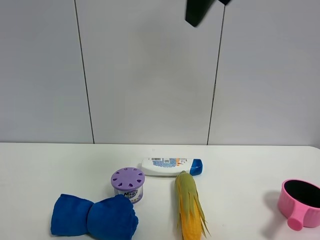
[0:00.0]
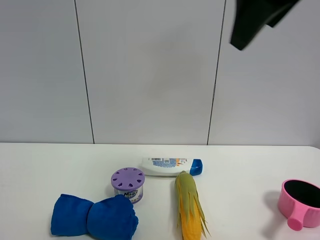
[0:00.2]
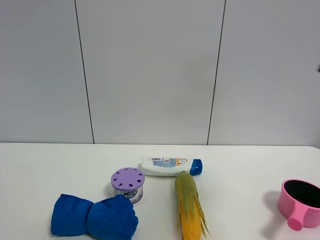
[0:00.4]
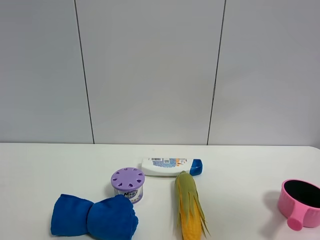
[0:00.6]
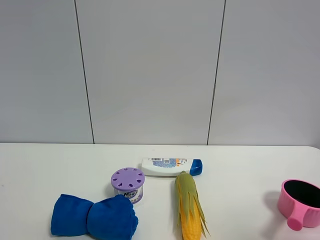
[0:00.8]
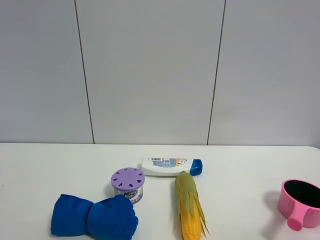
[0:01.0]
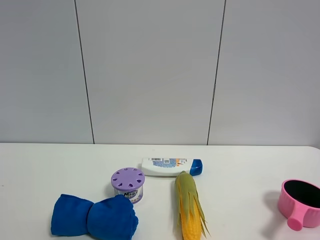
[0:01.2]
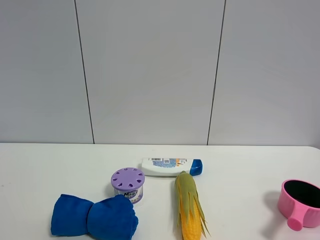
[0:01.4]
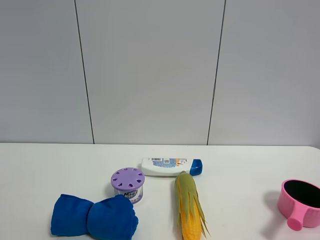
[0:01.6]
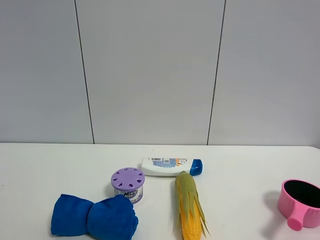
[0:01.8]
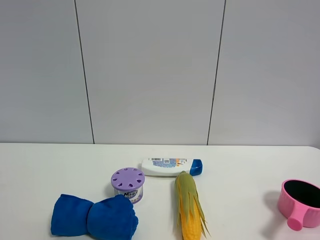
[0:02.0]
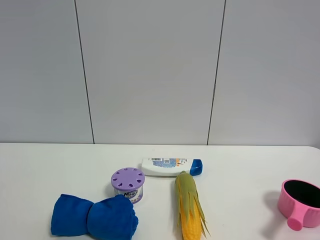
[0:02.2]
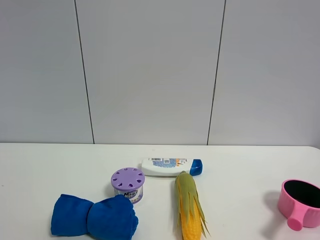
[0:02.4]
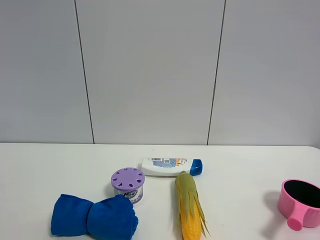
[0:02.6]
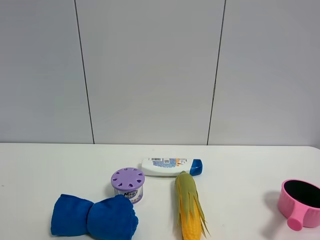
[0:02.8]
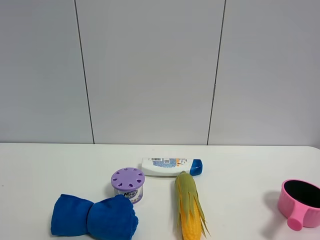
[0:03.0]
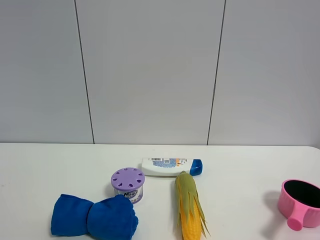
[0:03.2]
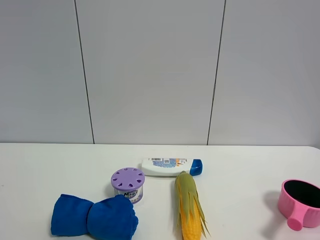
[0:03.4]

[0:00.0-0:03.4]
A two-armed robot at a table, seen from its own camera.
Task of the whole recording: the gripper move the object.
0:00.0 to 0:01.6: The right gripper goes some 35 cm backward, to the right and downward.

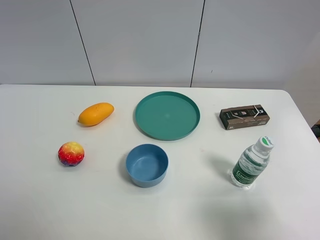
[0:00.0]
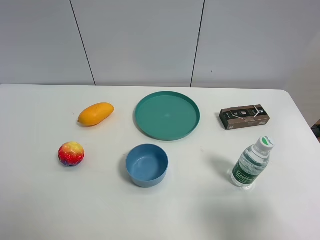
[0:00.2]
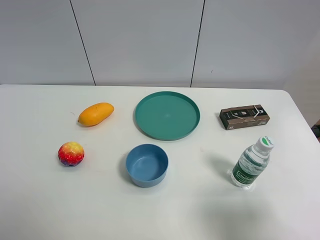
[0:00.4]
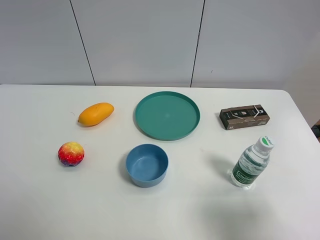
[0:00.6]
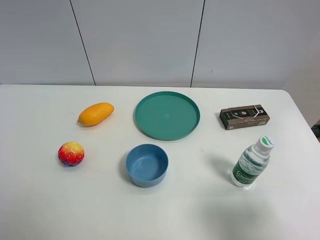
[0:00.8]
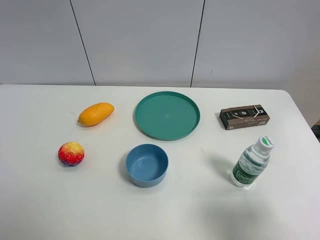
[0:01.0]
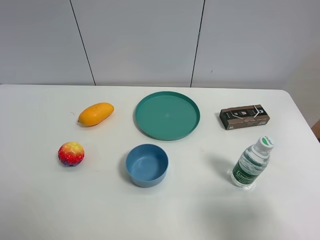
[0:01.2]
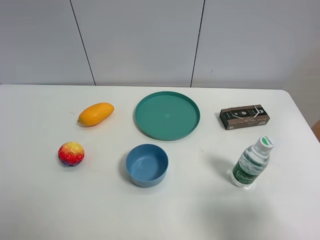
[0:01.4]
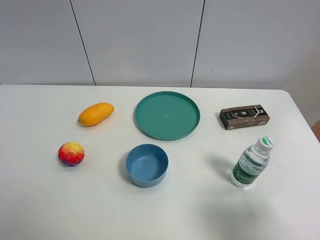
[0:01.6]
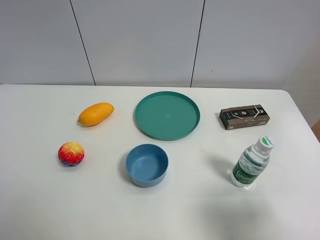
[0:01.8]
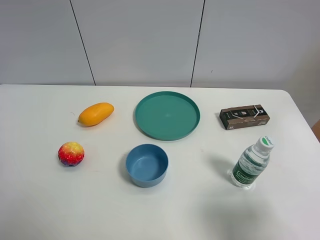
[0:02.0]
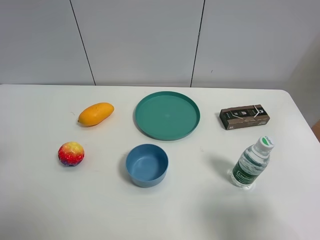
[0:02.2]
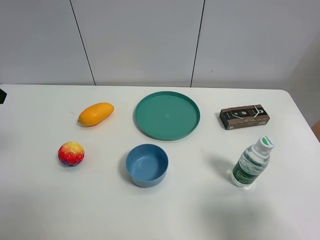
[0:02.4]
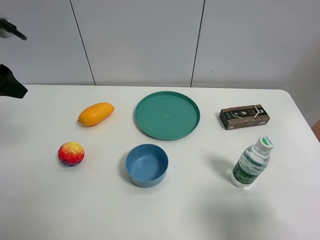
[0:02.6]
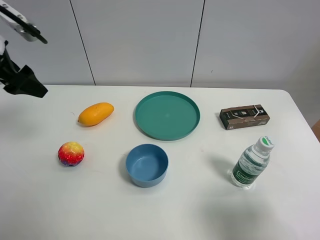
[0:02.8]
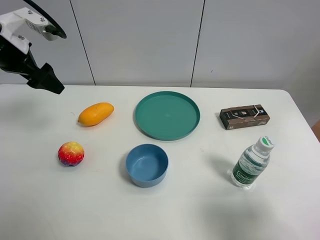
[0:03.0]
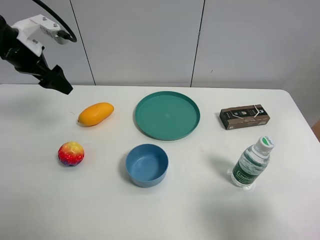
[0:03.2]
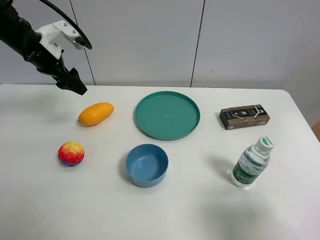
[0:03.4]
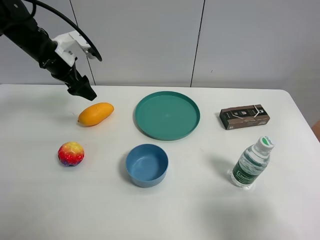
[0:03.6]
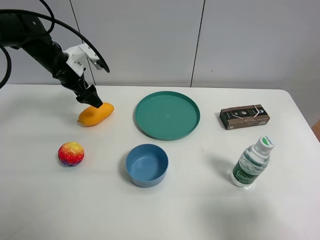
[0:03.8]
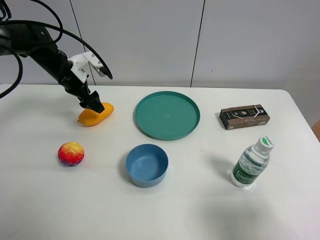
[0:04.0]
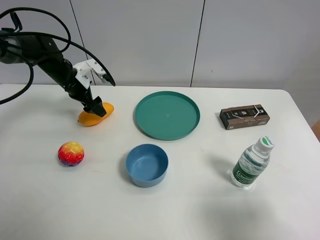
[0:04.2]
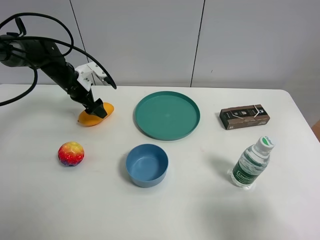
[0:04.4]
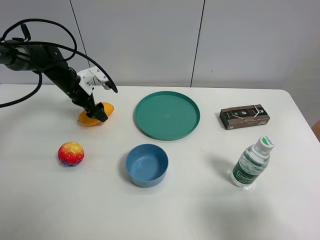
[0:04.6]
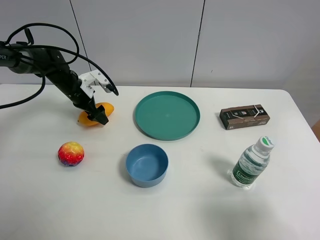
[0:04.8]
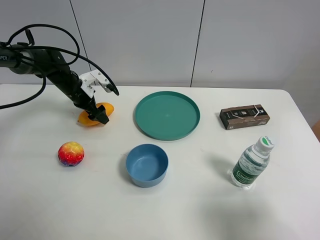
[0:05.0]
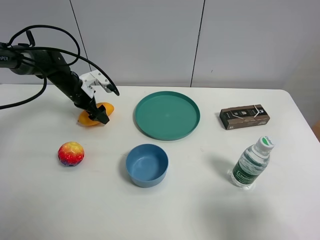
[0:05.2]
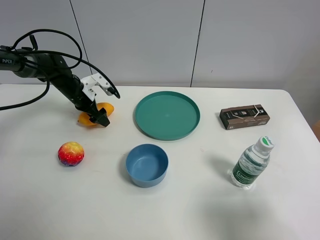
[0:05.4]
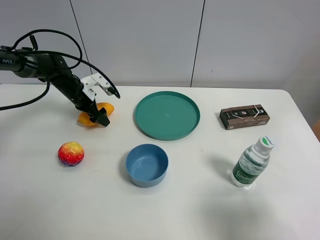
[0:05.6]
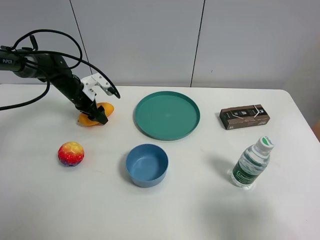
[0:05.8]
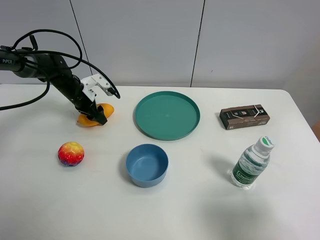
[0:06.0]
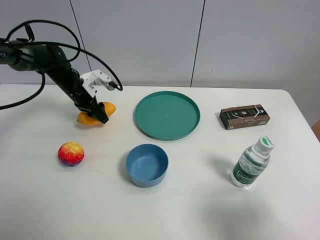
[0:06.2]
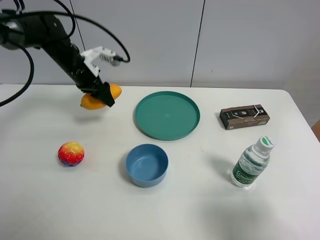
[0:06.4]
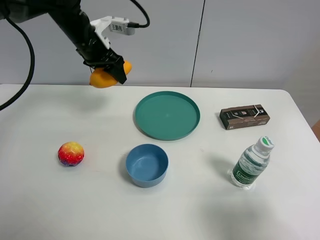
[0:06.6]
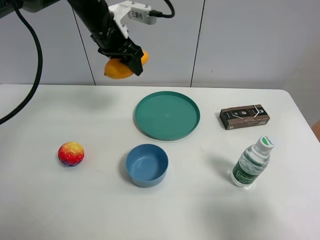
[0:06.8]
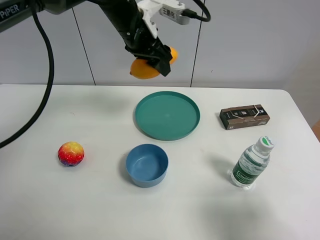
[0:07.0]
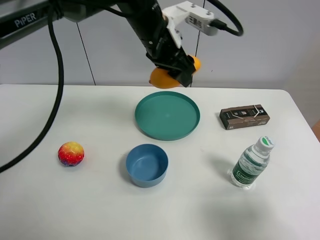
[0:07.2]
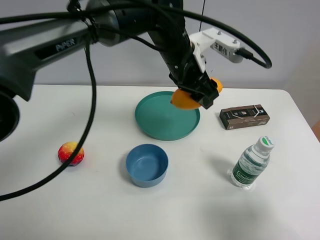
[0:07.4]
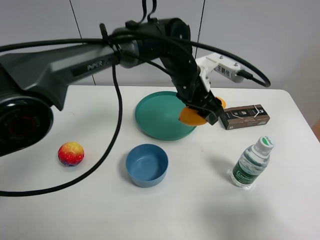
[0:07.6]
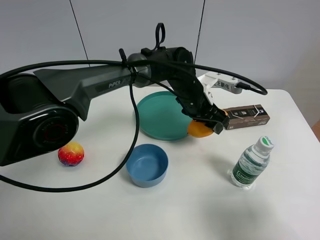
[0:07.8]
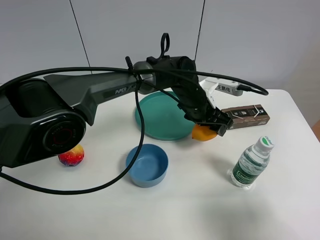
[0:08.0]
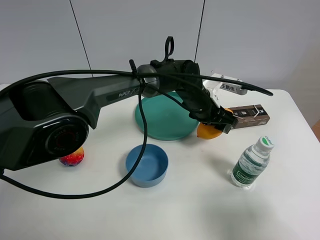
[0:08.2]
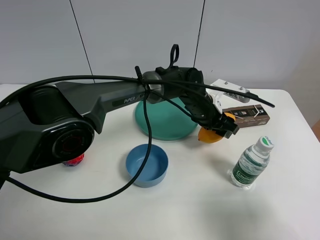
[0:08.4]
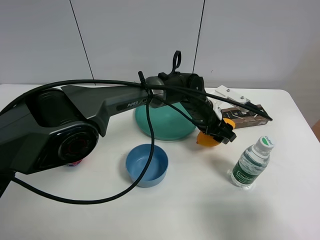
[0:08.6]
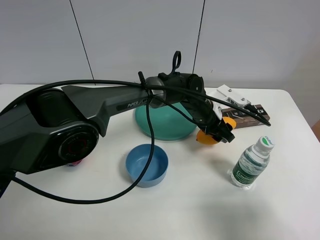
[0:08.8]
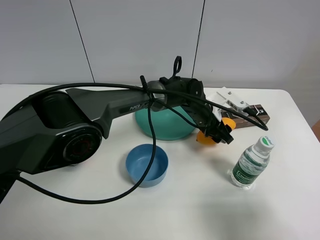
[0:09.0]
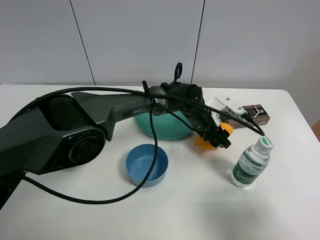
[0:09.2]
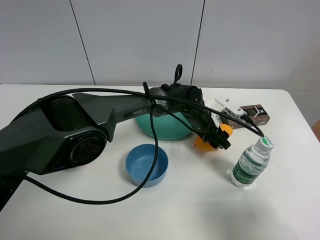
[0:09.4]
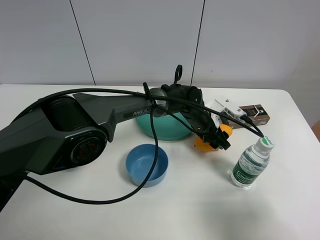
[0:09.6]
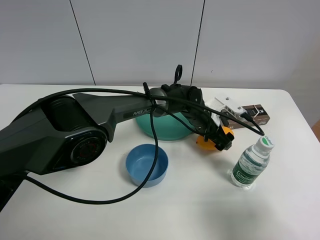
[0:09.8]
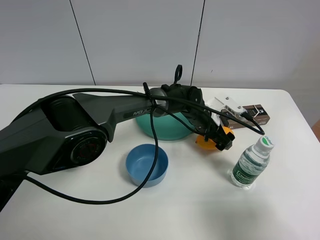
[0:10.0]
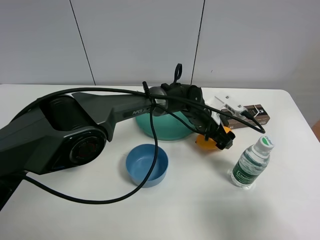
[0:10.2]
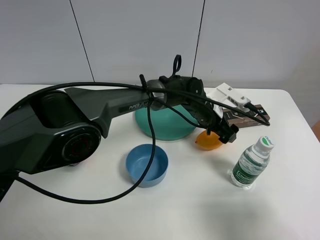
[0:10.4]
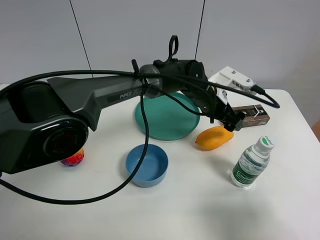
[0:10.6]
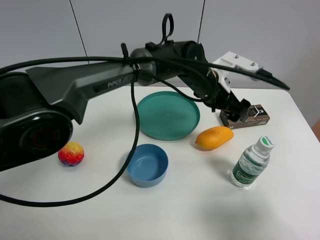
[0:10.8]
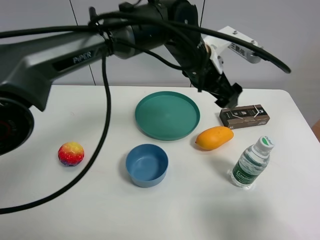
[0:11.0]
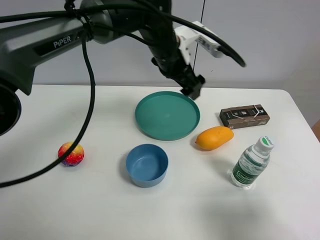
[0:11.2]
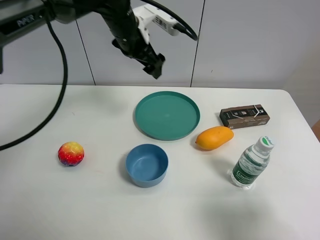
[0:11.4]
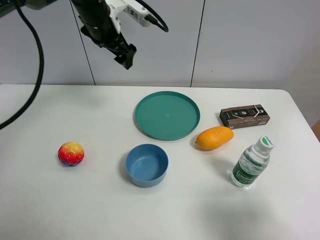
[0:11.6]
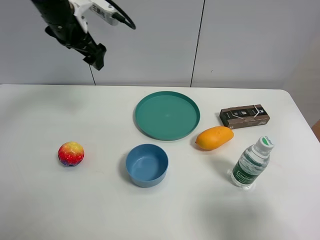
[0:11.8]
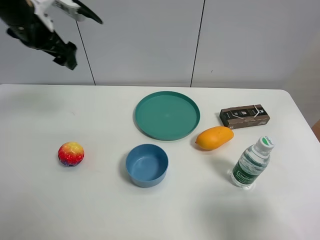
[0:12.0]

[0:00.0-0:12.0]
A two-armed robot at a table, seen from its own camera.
Task of the whole recording: the gripper move the object.
Step, 0:00.0 to 0:06.0: Grasp the mango with the left gripper.
Step, 0:06.2 to 0:10.2: Place the mango on the table with the left gripper.
0:01.6 to 0:03.0: The left gripper heads forward, covering some 35 cm.
0:03.0 to 0:04.4: The left gripper goes about 20 cm downward and forward.
0:04.4 to 0:06.0: The left gripper closes.
0:06.0 to 0:07.6: The left gripper moves to the right, some 30 cm.
0:07.6 to 0:09.0: The left gripper shifts about 10 cm downward.
0:09.0 to 0:10.4: The left gripper opens.
0:10.4 to 0:12.0: The left gripper is displaced to the left and upward by approximately 40 cm.

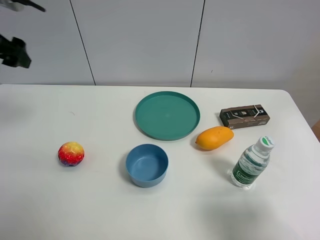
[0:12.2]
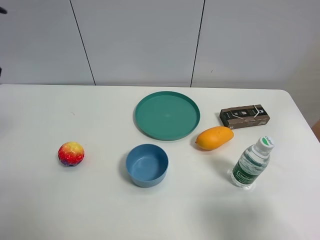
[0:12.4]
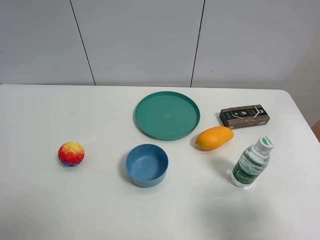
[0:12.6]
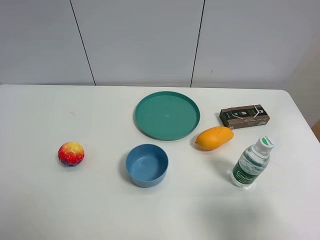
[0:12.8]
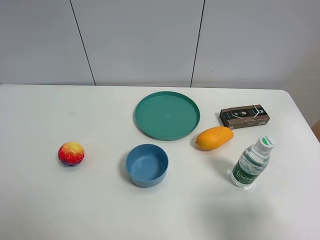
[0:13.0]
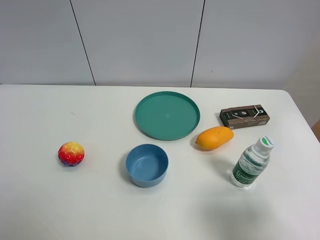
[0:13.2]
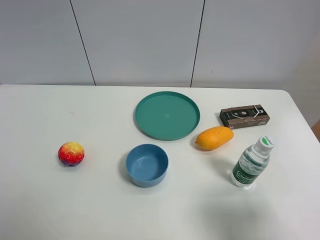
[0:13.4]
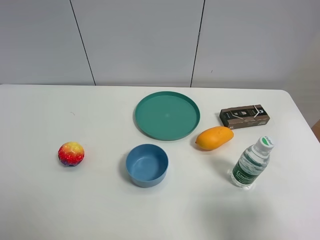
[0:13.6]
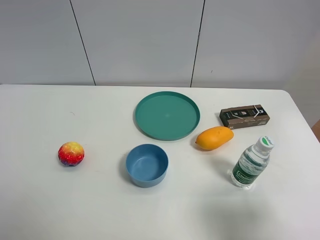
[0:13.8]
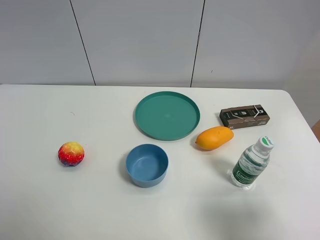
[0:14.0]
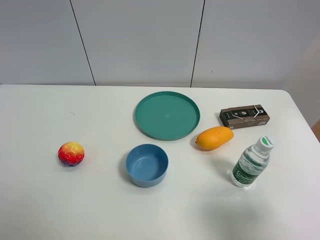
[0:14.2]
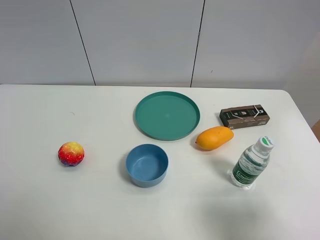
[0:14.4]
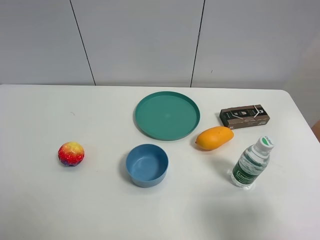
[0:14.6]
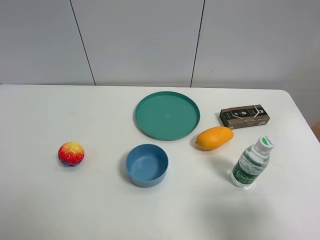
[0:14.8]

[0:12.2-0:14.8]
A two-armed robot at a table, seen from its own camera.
Task of the whole recording: the gripper move the object.
0:12.2 to 0:13.4: The left gripper is displaced backward by roughly 30 cm.
0:13.4 to 0:14.8: Both grippers stay put.

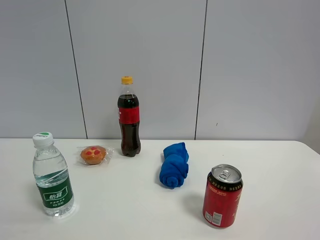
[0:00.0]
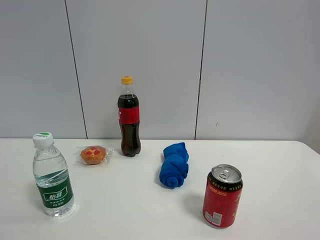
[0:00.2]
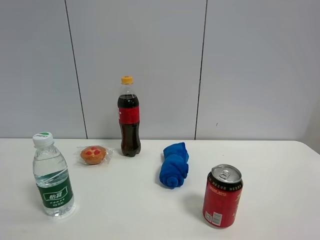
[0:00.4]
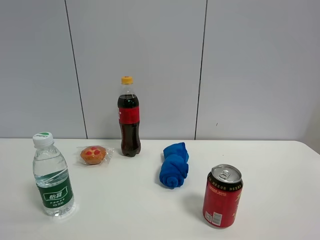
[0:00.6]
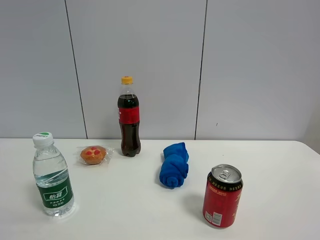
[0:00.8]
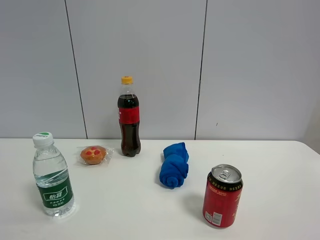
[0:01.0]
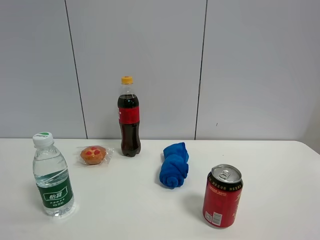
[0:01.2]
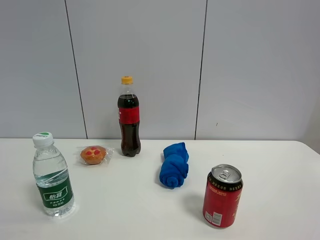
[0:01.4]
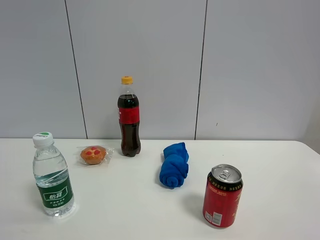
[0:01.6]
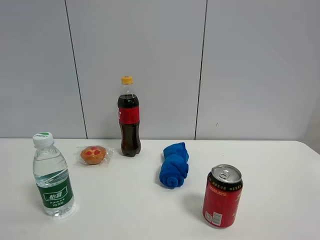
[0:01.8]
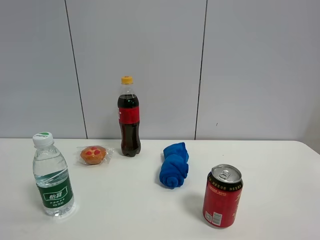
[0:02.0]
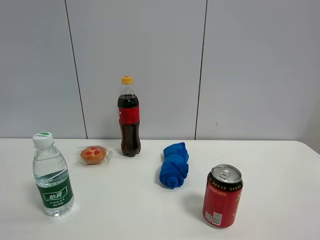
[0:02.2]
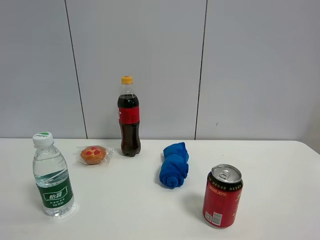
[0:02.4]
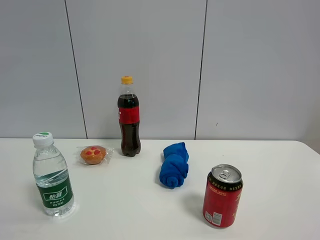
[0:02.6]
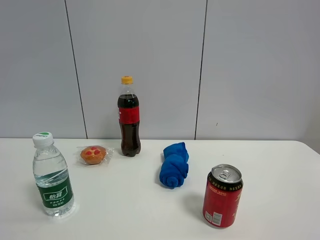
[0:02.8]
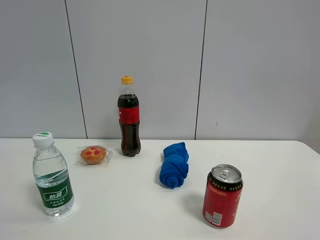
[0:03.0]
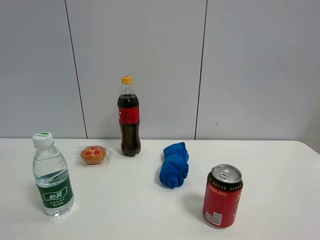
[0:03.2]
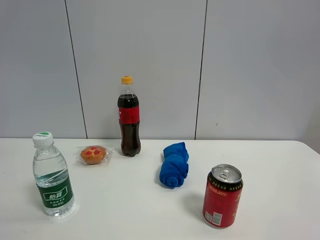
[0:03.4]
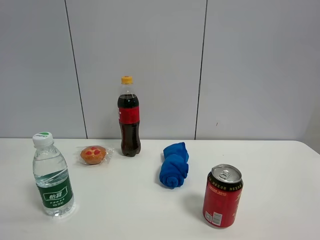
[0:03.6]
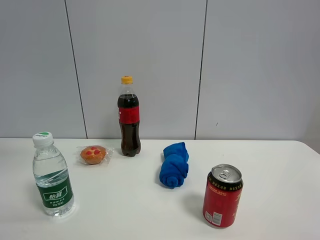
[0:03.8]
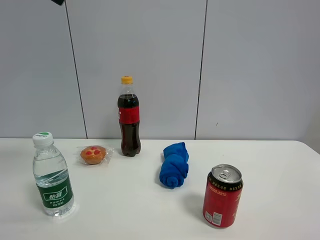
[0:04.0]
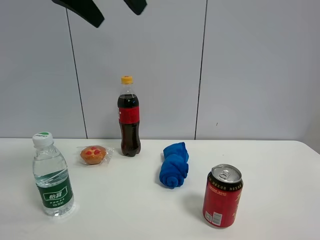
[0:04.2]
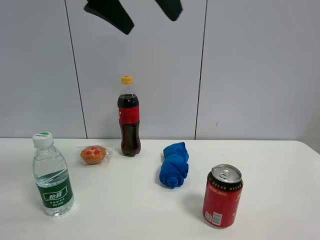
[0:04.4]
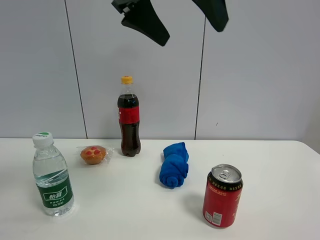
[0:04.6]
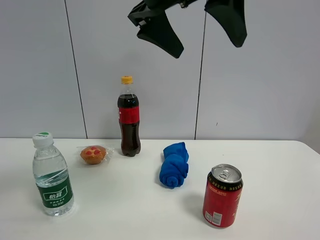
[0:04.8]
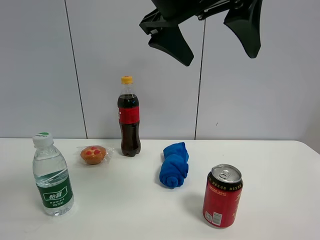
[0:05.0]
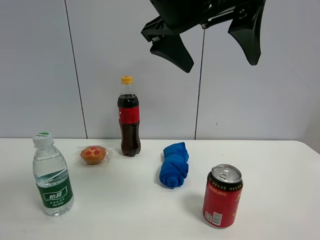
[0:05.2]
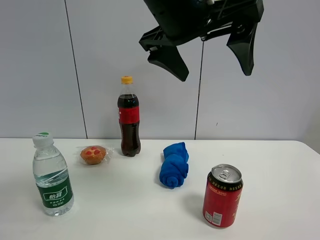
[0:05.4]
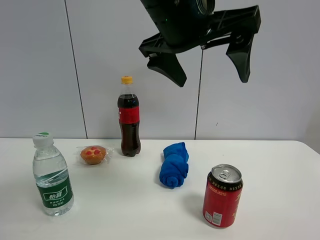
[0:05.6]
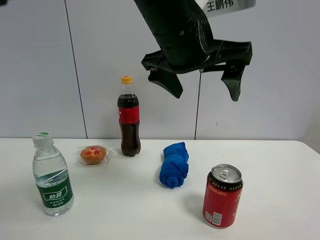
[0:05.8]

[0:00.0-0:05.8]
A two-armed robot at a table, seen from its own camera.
Task of the whole recording: the gripper move the object.
0:00.0 to 0:01.4: Neither gripper changes place.
0:02.8 to 0:04.4: The left gripper travels to the right and forward by roughly 25 cm.
0:04.4 to 0:05.8: The left gripper heads downward and to the right, covering roughly 15 cm.
